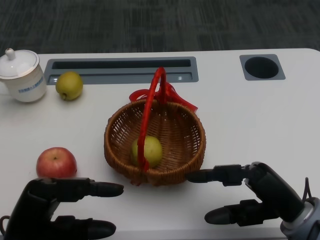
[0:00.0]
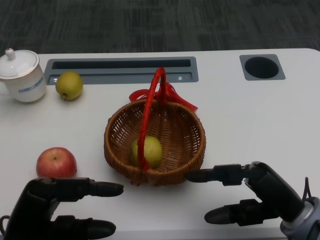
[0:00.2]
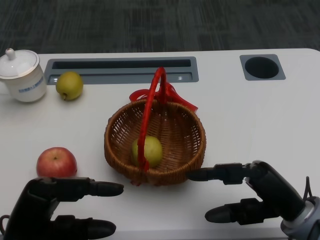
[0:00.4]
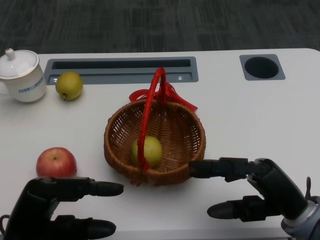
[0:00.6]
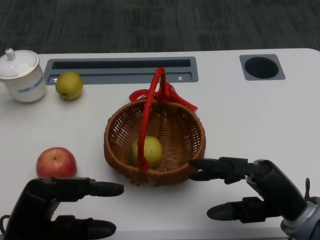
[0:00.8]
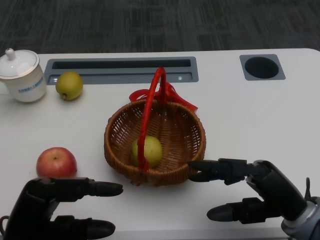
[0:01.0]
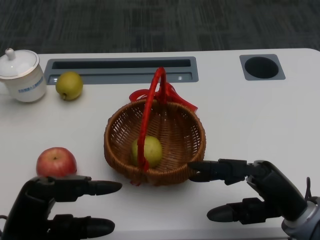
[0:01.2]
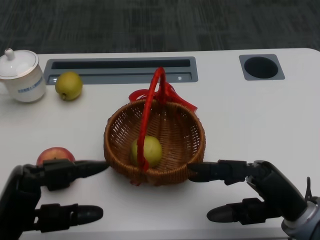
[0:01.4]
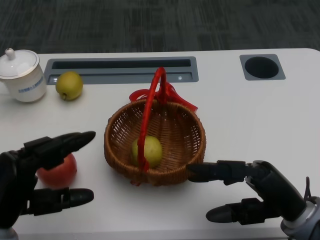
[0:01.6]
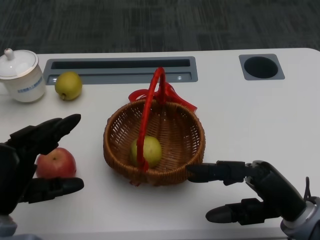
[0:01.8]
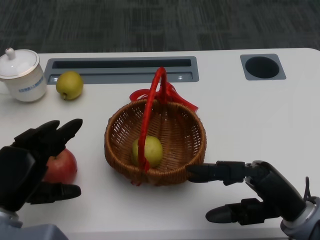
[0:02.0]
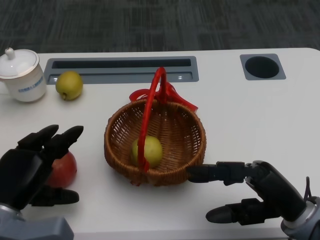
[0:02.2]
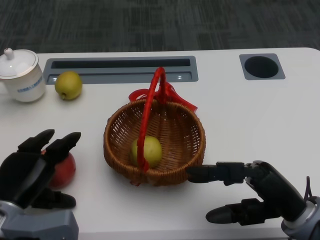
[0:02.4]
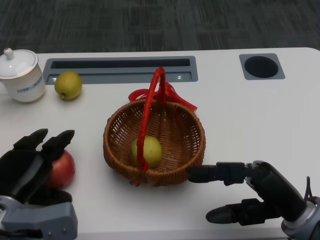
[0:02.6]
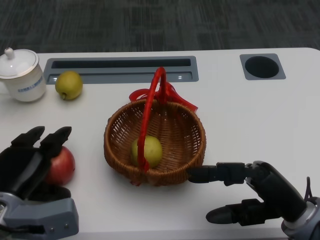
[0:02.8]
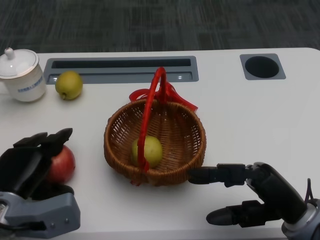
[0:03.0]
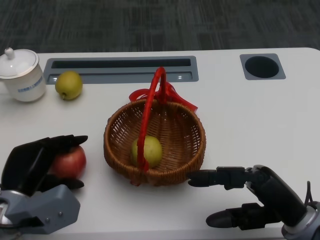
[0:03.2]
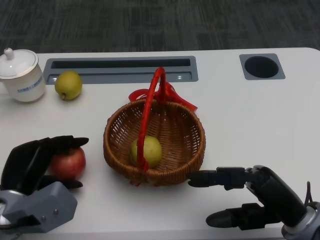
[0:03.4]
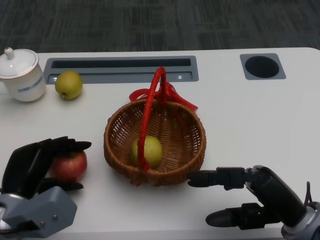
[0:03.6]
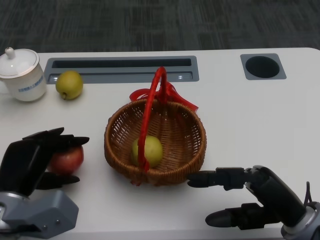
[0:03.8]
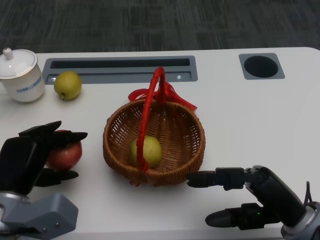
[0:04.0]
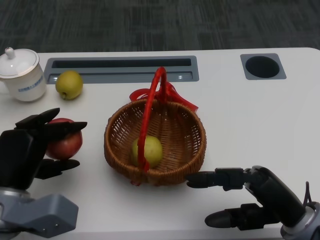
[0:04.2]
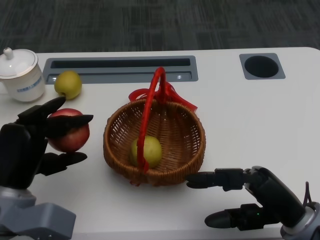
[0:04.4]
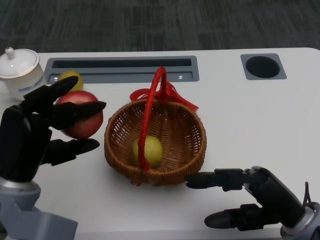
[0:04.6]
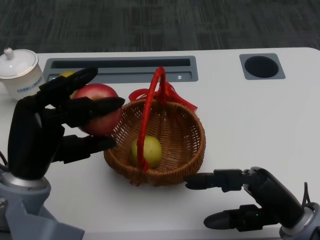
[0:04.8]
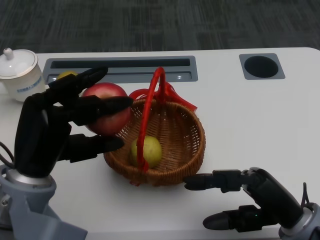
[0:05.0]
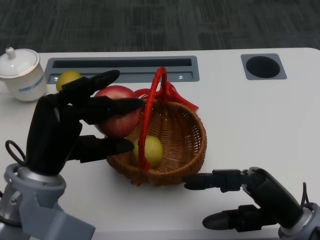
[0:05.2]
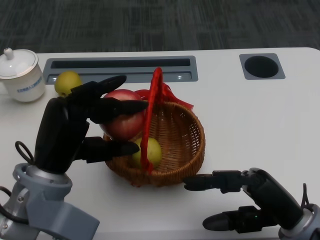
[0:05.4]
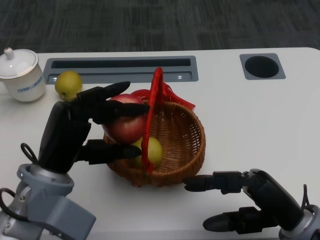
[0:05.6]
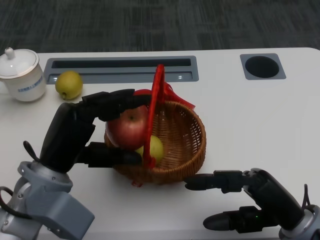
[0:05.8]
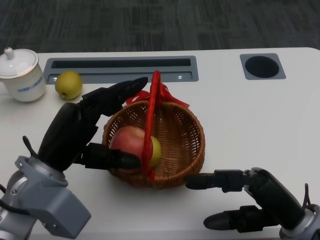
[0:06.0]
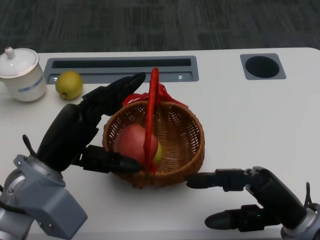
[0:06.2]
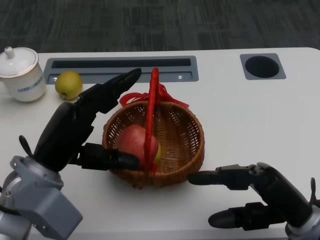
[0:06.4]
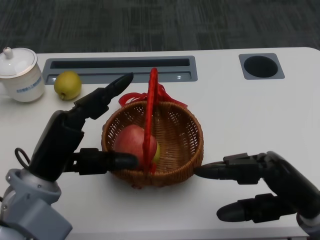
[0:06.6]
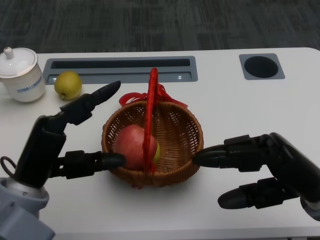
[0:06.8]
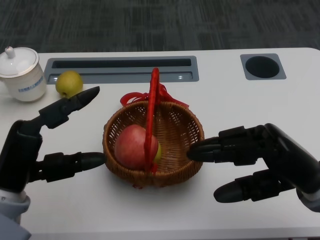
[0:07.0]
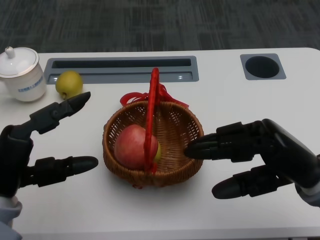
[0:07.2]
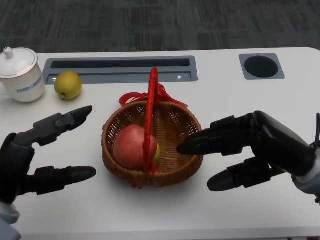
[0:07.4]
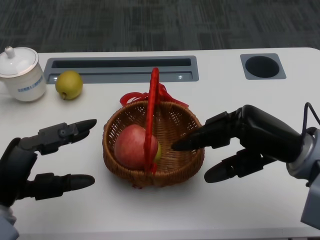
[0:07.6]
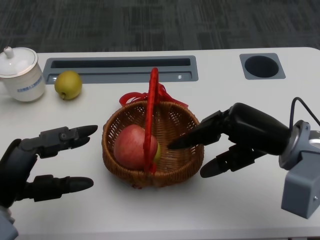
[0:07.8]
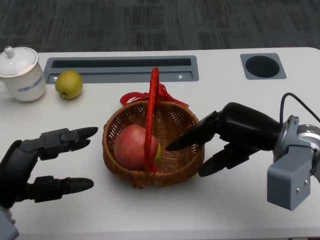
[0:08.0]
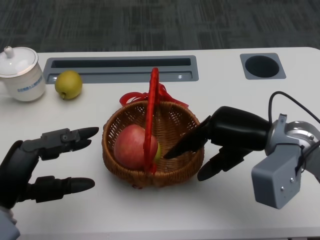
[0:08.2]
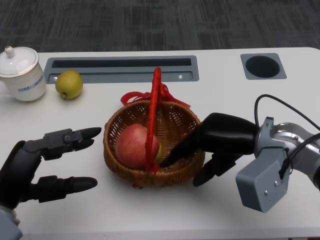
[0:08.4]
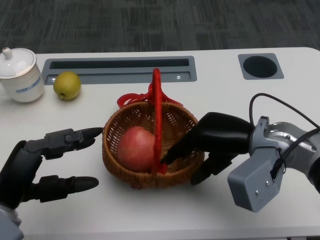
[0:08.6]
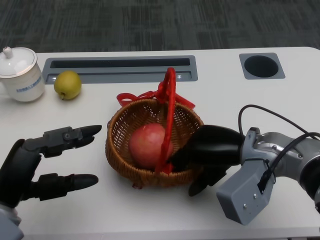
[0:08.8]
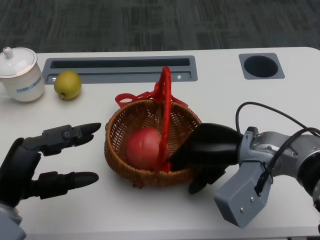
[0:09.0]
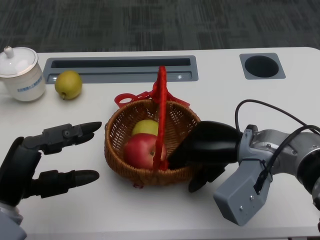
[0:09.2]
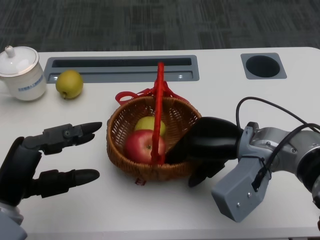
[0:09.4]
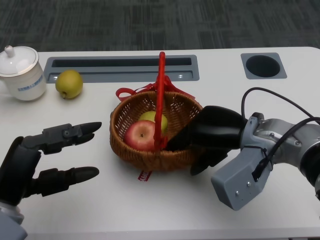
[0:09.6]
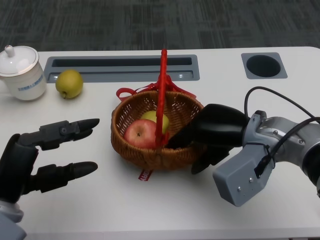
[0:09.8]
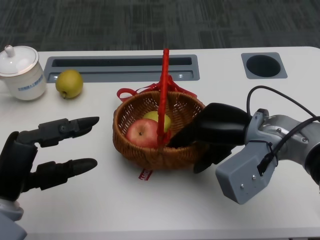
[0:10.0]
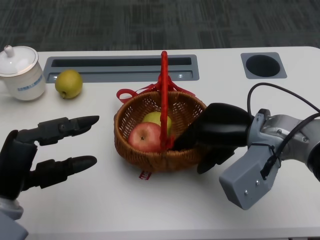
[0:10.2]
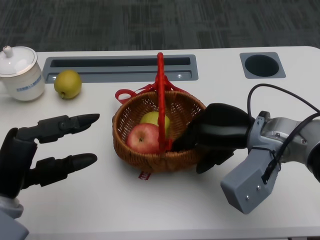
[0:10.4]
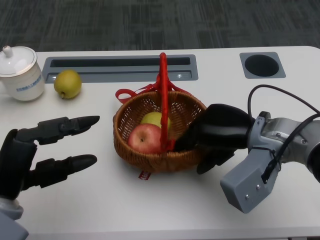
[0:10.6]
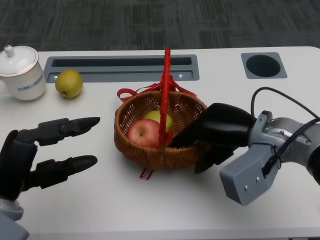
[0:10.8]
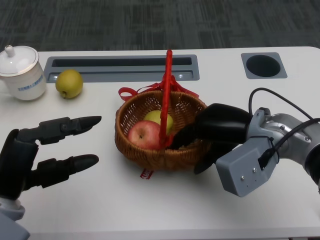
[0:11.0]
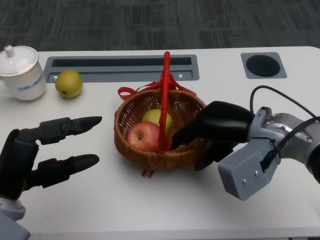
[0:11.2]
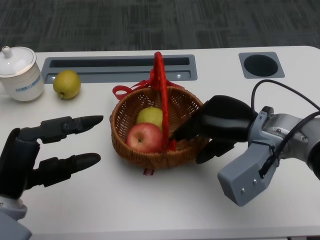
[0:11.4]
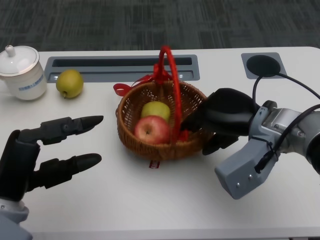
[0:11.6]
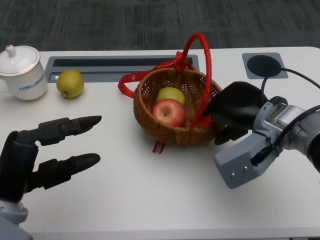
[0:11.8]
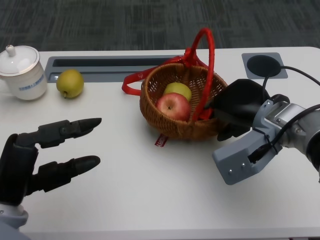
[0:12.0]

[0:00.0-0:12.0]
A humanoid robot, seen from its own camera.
Step, 0:01.0 to 0:02.4: Grasp the apple with the left gripper.
Step, 0:02.6 to 0:04.8: Place the apple into the basket with the left gripper.
Step, 0:05.0 to 0:08.8: Grasp the basket with the right gripper.
Step, 0:09.0 to 0:11.2: Move the basket to the front of the table with the right gripper.
0:01.6 to 0:03.0: The left hand is displaced forward by roughly 5 cm.
0:04.4 to 0:06.0: The left hand moves roughly 5 cm.
0:06.0 to 0:07.6: The left hand is displaced to the left by about 5 cm, while the right hand travels upward and forward by about 10 cm.
0:07.6 to 0:09.0: The right hand is displaced to the left by approximately 5 cm.

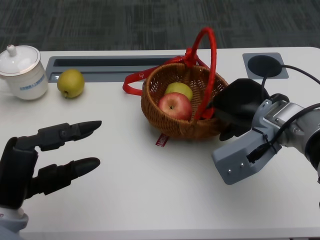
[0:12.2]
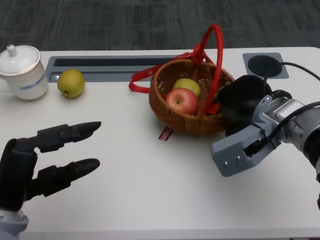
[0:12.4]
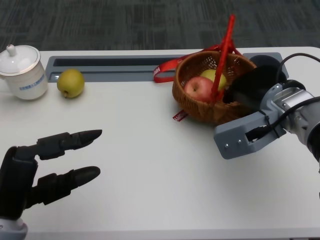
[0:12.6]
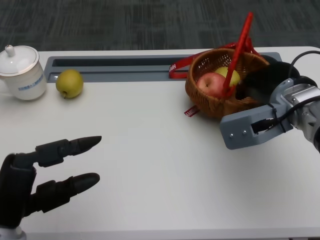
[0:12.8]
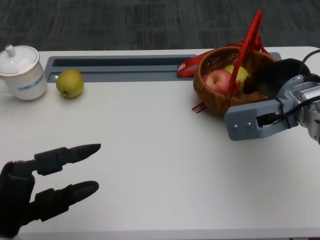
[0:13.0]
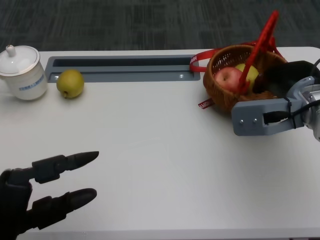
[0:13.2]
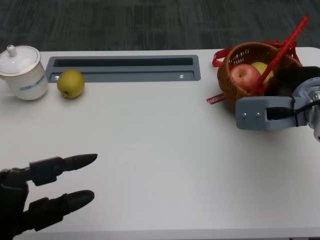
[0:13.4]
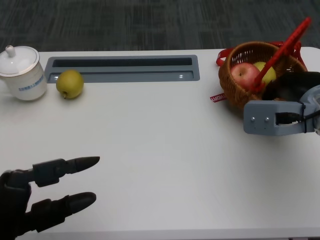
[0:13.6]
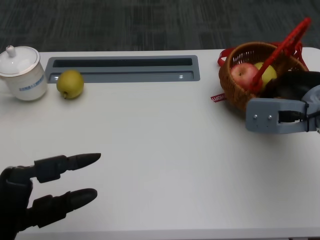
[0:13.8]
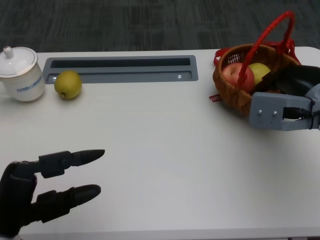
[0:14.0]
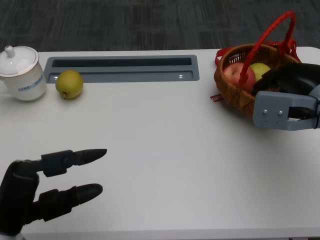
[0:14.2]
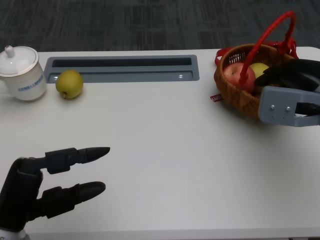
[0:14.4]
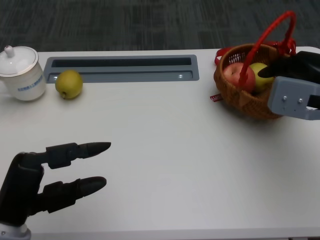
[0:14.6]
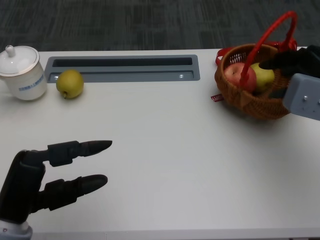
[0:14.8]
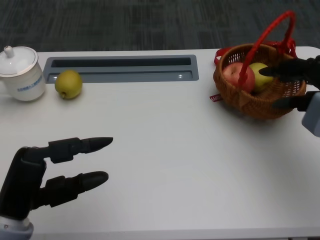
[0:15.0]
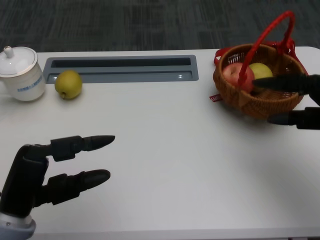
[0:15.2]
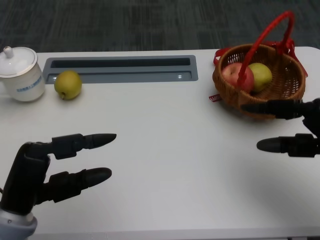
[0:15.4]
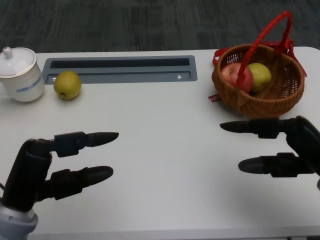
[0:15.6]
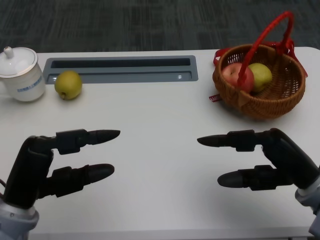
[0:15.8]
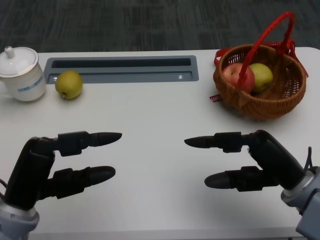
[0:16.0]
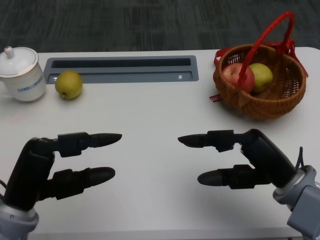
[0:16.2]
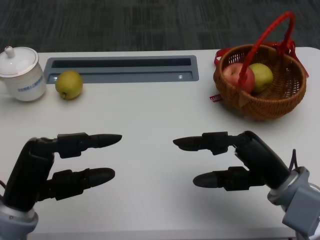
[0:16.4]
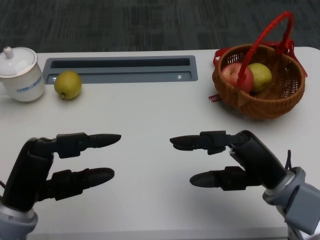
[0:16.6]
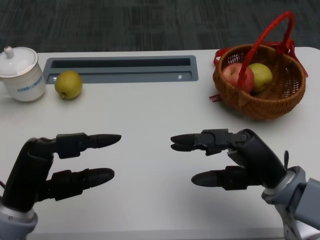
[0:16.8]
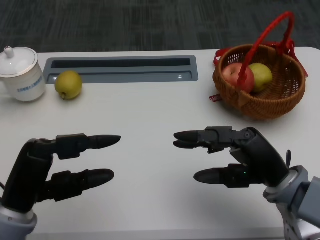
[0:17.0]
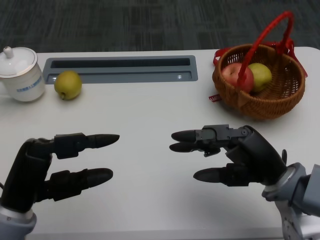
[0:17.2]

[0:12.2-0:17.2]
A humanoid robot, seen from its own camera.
0:12.2 to 0:13.8: The right hand travels to the right by approximately 5 cm.
0:13.8 to 0:15.6: The right hand shifts roughly 10 cm backward.
0:15.6 to 0:17.2: The right hand moves to the left, approximately 5 cm.

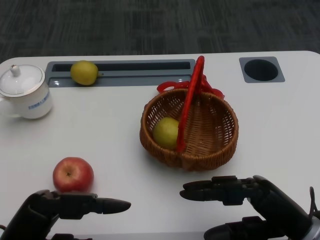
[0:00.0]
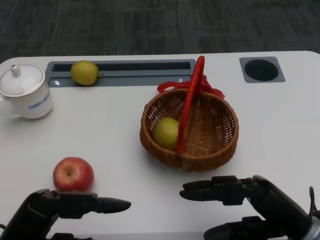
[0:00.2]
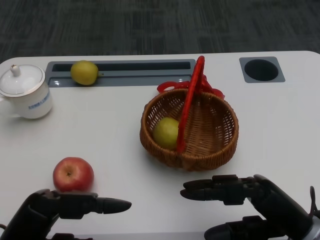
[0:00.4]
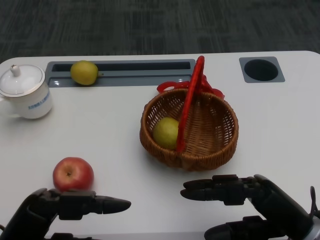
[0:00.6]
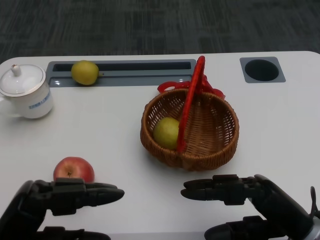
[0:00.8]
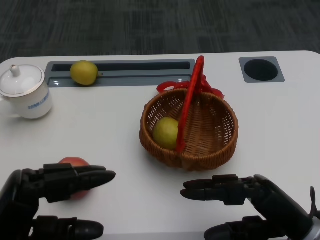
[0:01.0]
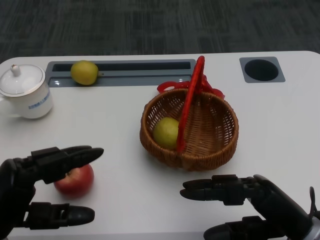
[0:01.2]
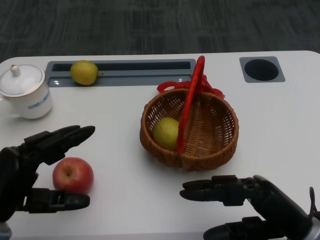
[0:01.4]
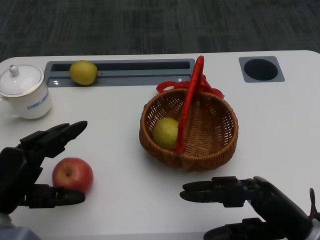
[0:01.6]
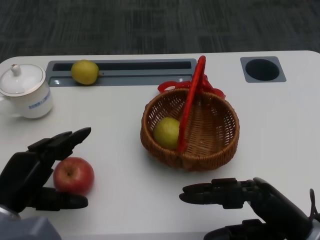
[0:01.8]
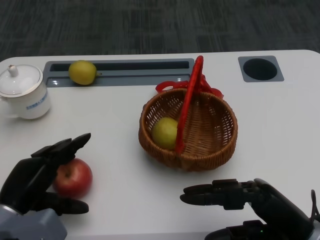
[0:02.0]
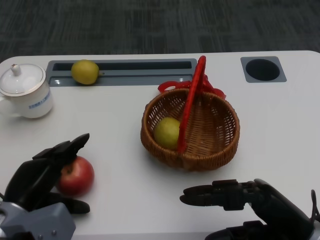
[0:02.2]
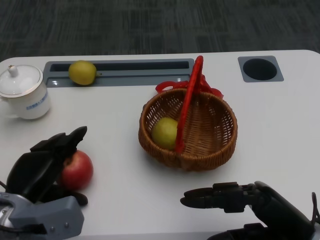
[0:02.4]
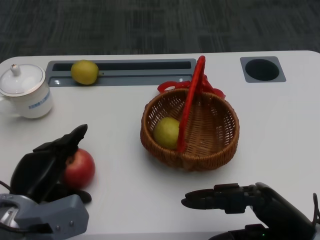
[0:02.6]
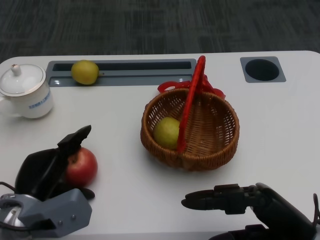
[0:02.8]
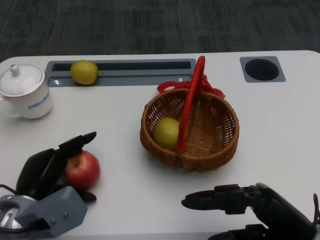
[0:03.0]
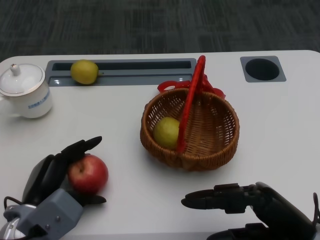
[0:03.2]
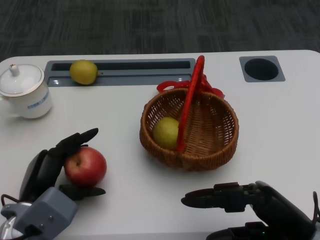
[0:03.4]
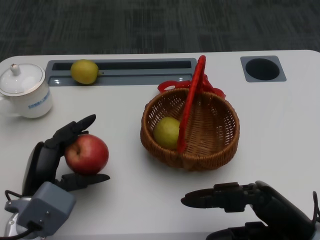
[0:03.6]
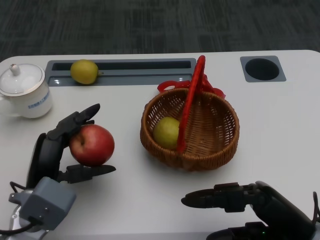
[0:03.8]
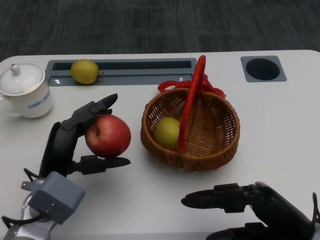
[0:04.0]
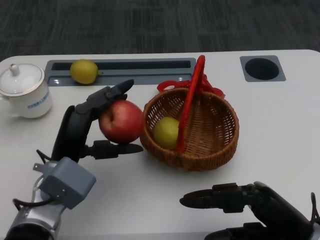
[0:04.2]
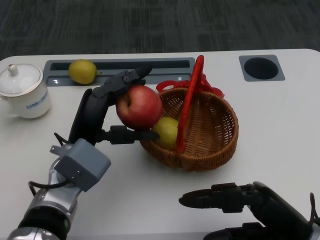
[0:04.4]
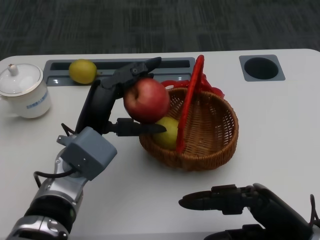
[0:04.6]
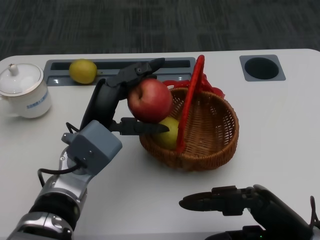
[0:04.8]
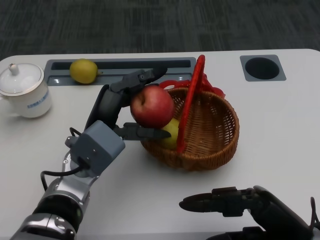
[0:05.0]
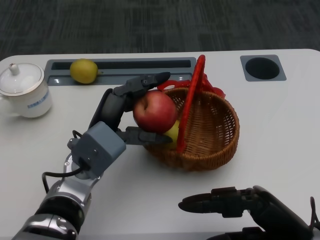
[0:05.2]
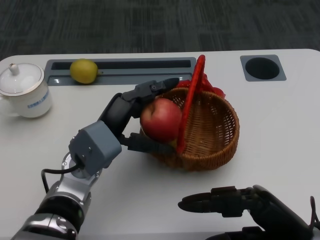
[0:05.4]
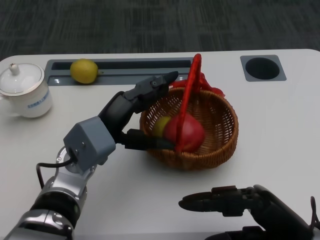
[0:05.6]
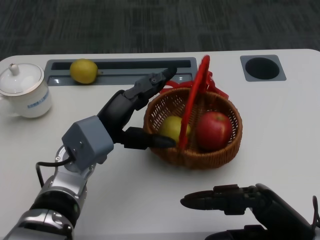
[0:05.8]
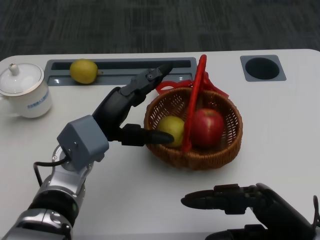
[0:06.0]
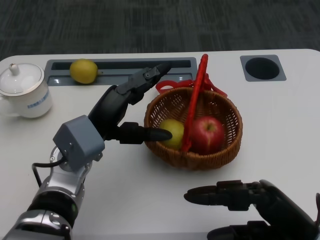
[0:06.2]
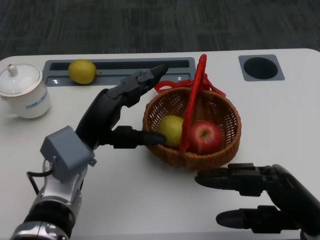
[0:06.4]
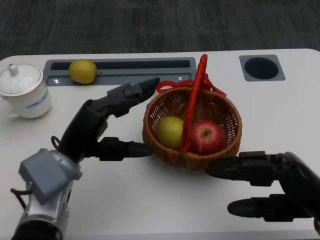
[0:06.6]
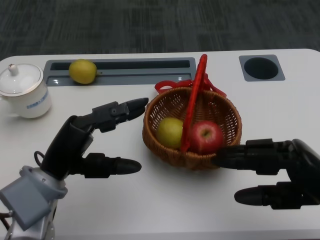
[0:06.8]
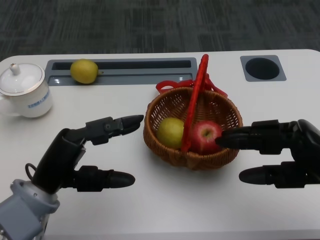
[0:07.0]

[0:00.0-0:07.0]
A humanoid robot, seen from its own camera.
Step, 0:00.6 to 0:02.0: Grasp the apple with the left gripper.
Step, 0:02.4 to 0:04.6: Place the apple into the basket with the left gripper.
0:01.4 to 0:02.8: The left hand moves downward and forward, approximately 10 cm.
0:02.8 to 0:04.2: The left hand goes approximately 10 cm to the right and upward.
0:04.2 to 0:05.6: The left hand ends up about 5 cm from where it was.
0:05.6 to 0:07.0: The right hand goes about 5 cm forward; the left hand goes about 10 cm to the left and backward.
